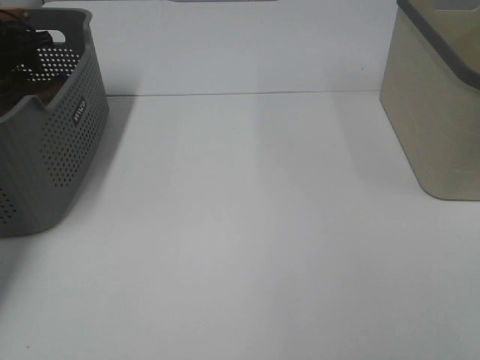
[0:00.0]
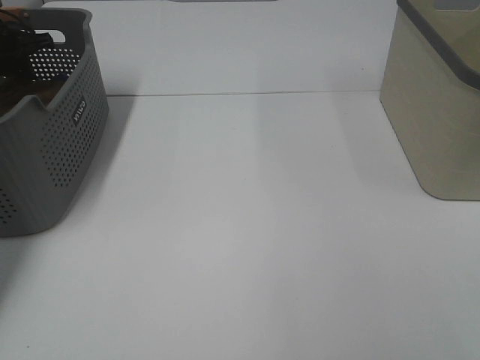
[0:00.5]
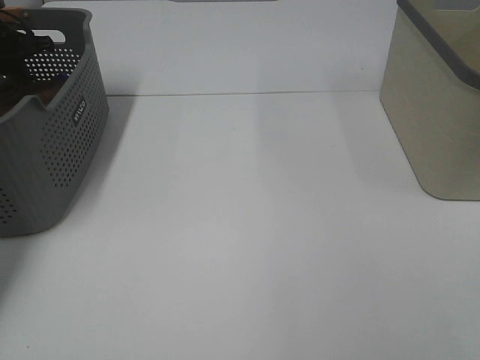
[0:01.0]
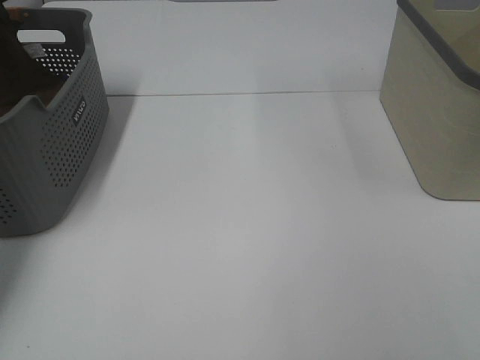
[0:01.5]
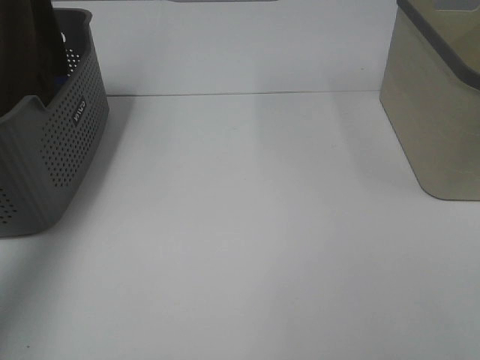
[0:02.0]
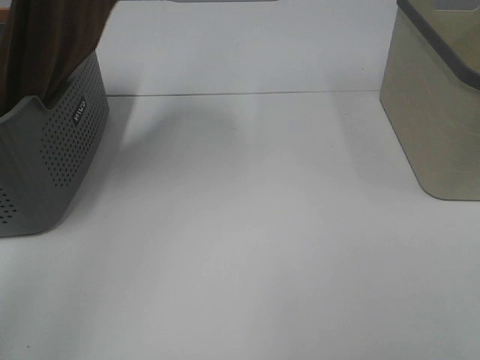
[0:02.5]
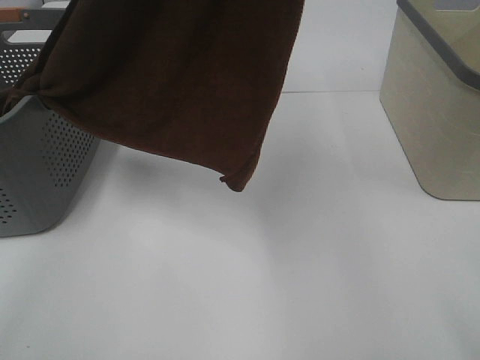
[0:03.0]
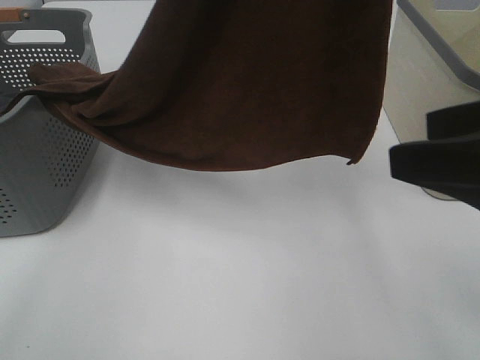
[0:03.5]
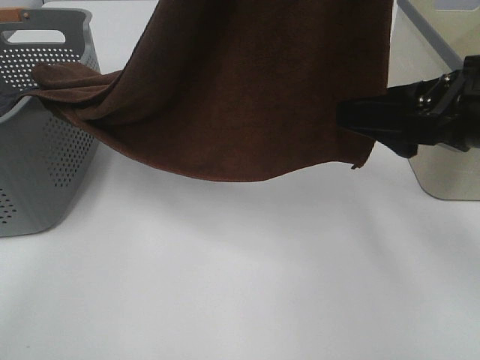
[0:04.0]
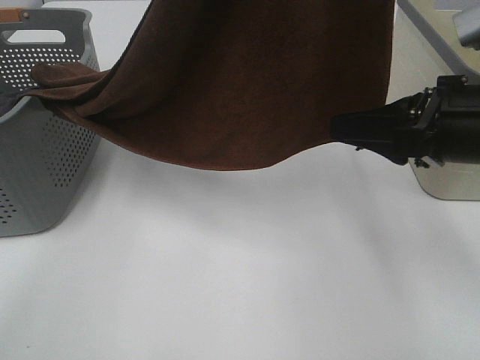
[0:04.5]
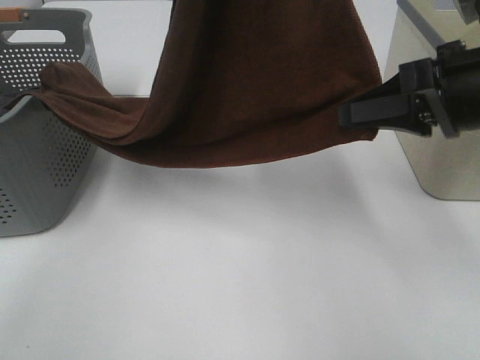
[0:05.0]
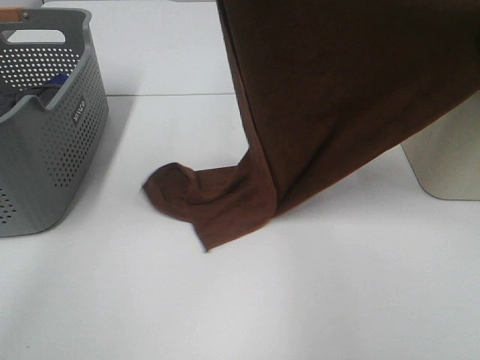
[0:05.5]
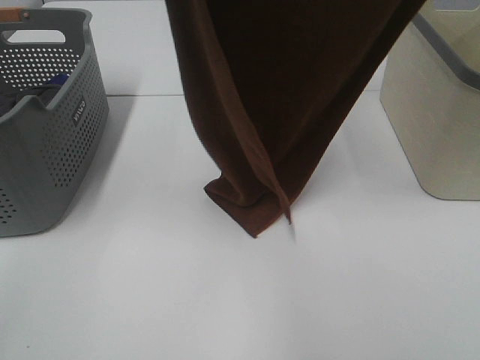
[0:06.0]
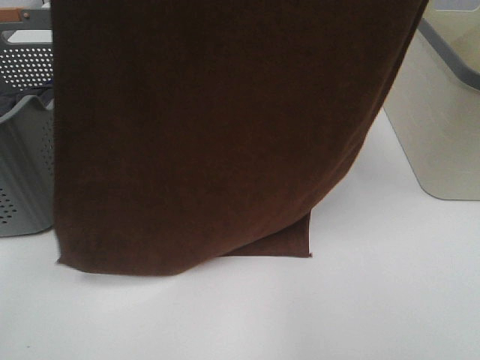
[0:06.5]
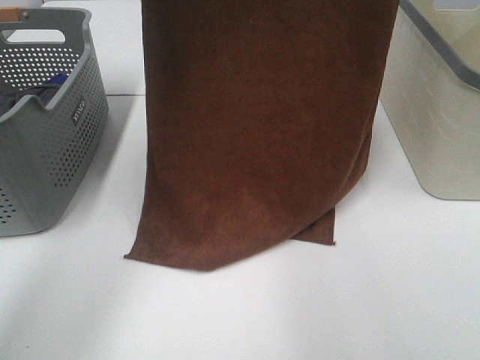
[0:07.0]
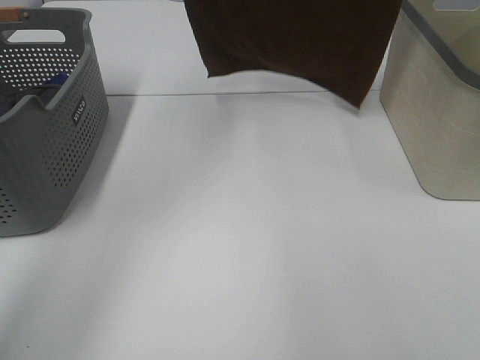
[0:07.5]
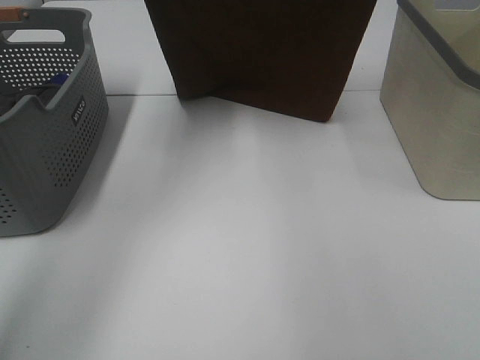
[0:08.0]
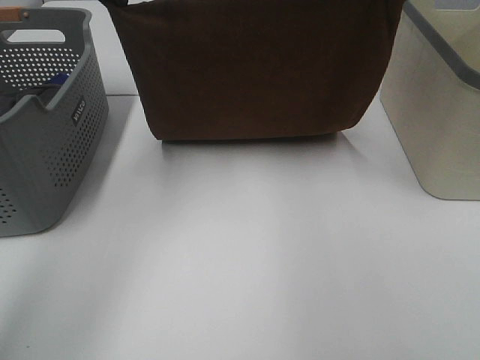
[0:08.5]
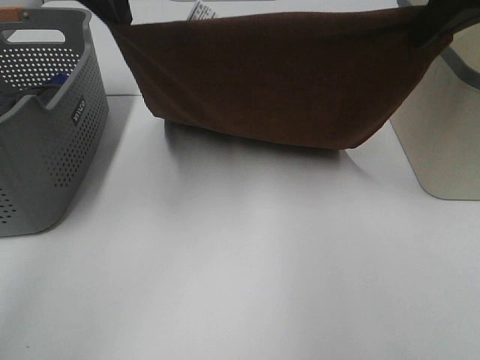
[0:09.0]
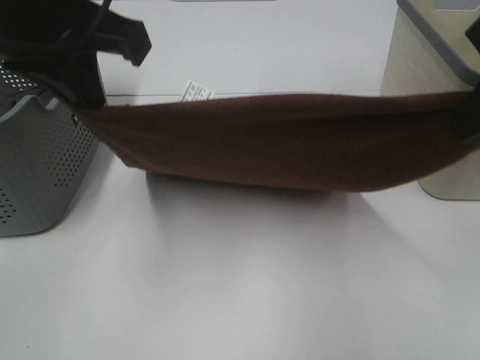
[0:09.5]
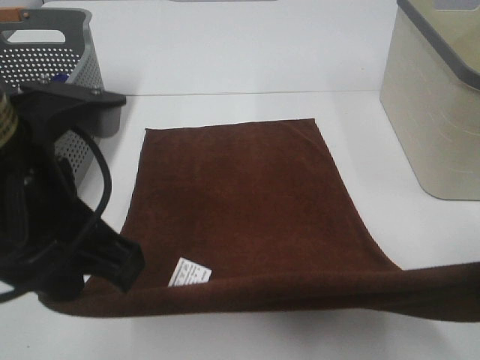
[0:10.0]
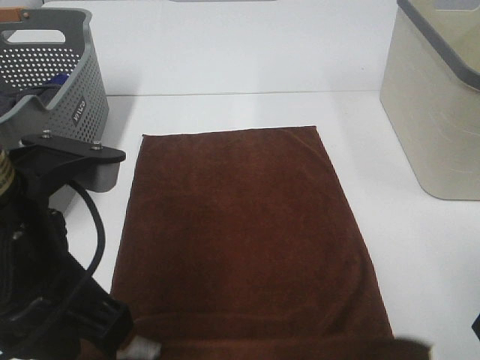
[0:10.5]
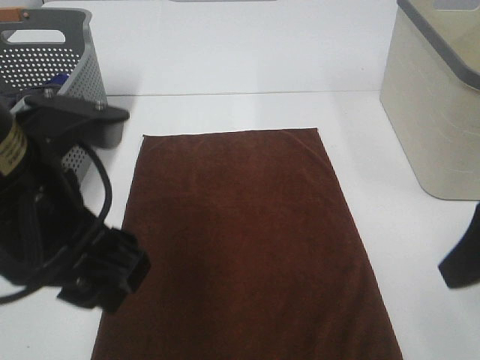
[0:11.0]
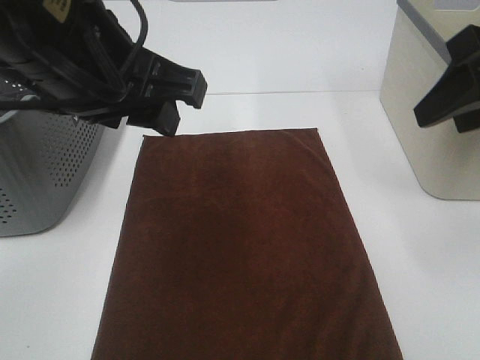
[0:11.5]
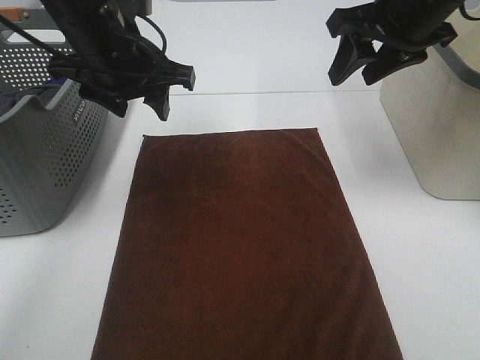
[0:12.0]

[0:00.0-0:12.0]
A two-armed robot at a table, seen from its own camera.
Task of the whole recording: Remove the towel and place it.
Step, 0:01.5 to 0:03.5: Right hand: grab a corner of the brown towel and straighten it.
Step, 0:04.0 to 0:07.0: Left hand: spread the brown towel flat on the table.
Step, 0:04.0 to 0:07.0: Right hand: spread the brown towel flat on the table.
0:00.0 to 0:02.0: The left gripper travels upward by about 30 cm, and closes up.
0:02.0 to 0:04.0: The left gripper travels to the right and backward by some 30 cm. Meanwhile the right gripper heads forward, covering roughly 20 cm.
0:04.0 to 0:06.0: The left gripper goes about 10 cm to the left, and reaches about 10 cm downward, then returns. The right gripper is displaced upward by some 25 cm, and closes its fingers.
0:06.0 to 0:08.0: The two grippers go some 20 cm forward and downward.
0:08.0 to 0:10.0: The grippers both shift backward and downward by roughly 30 cm.
0:10.0 to 0:12.0: The two grippers go approximately 25 cm forward. The right gripper opens. Meanwhile the left gripper opens up.

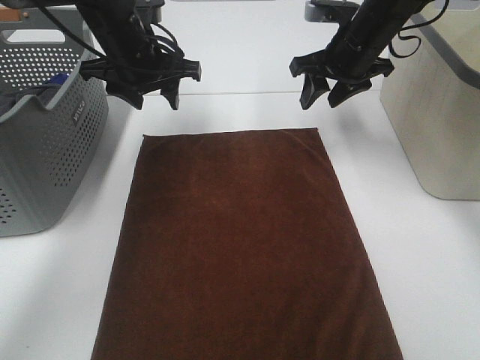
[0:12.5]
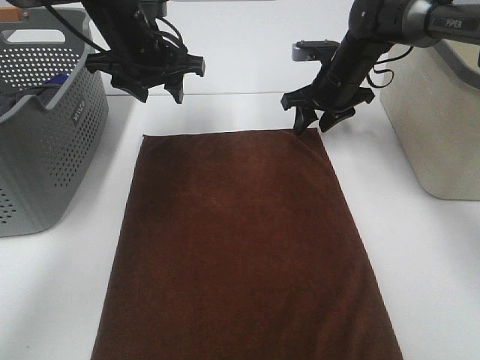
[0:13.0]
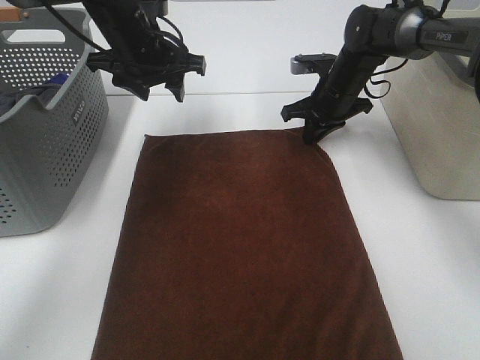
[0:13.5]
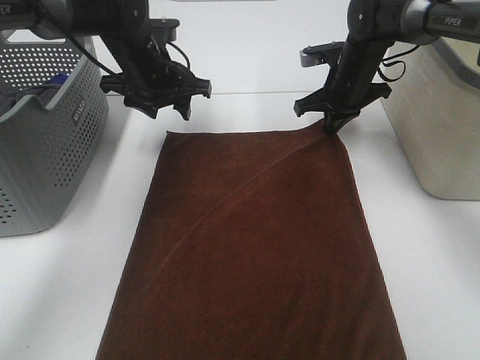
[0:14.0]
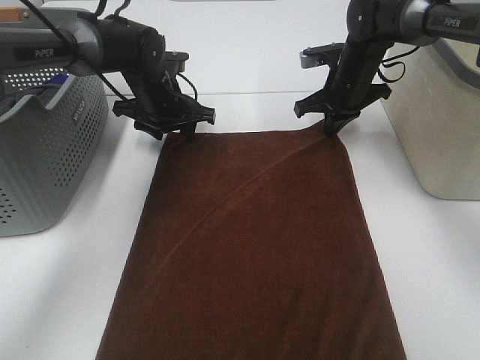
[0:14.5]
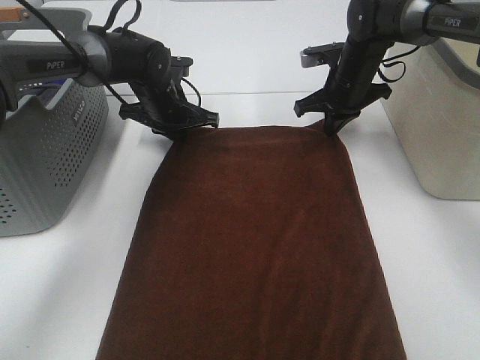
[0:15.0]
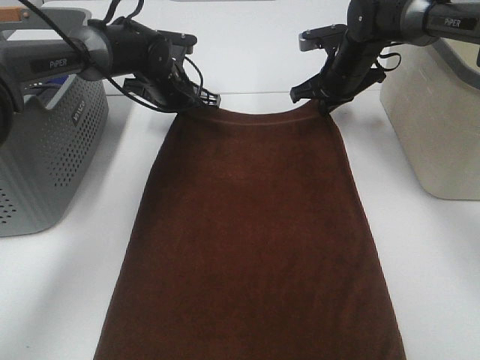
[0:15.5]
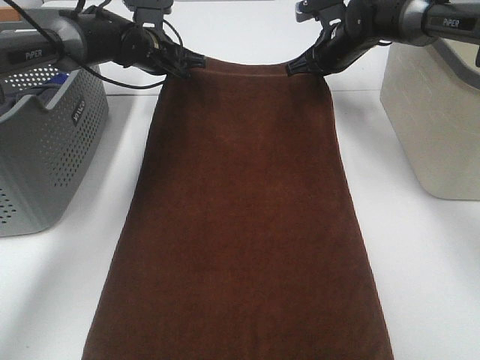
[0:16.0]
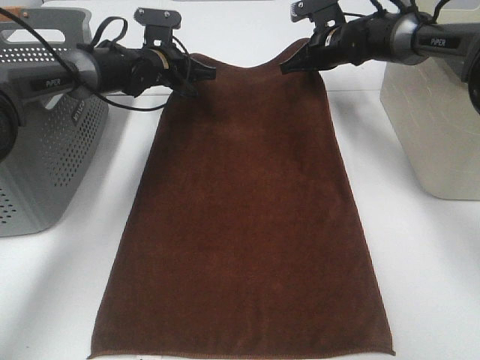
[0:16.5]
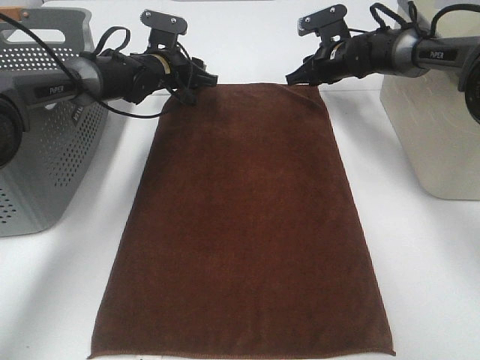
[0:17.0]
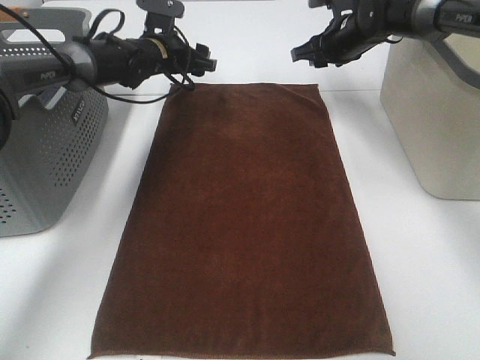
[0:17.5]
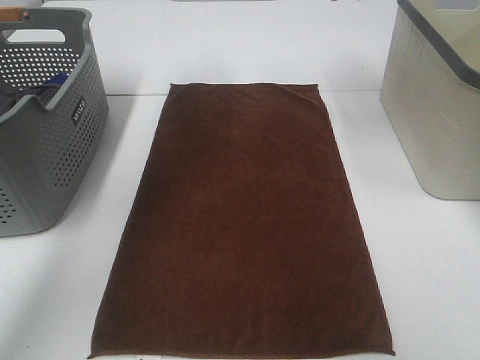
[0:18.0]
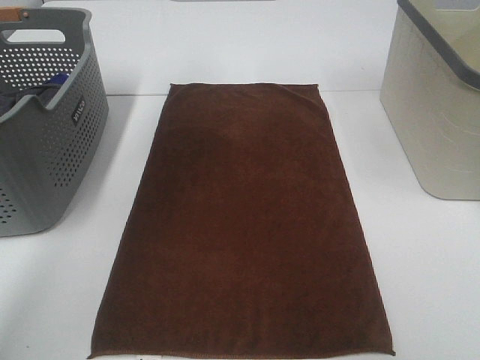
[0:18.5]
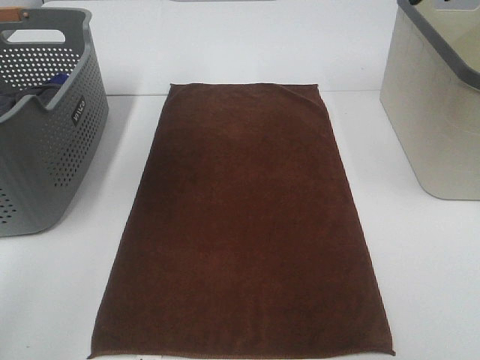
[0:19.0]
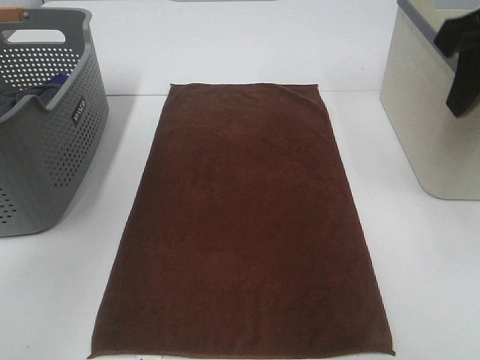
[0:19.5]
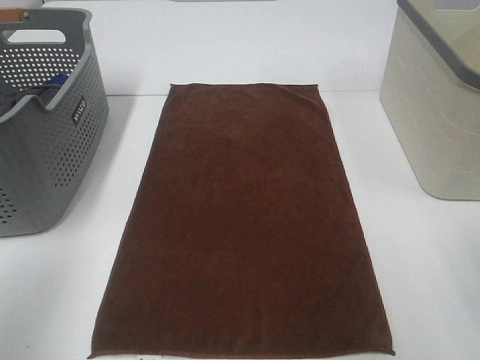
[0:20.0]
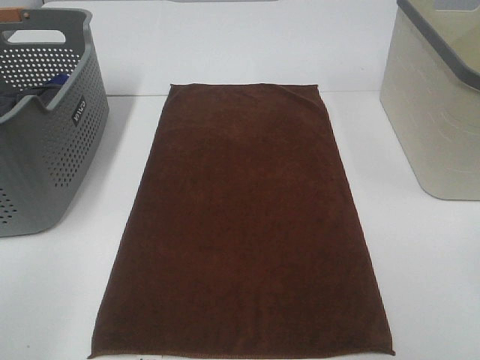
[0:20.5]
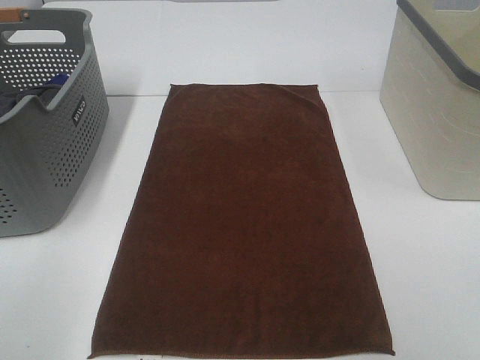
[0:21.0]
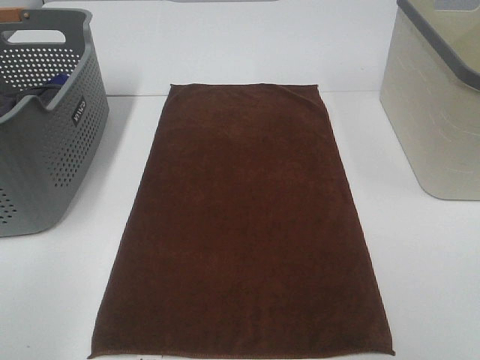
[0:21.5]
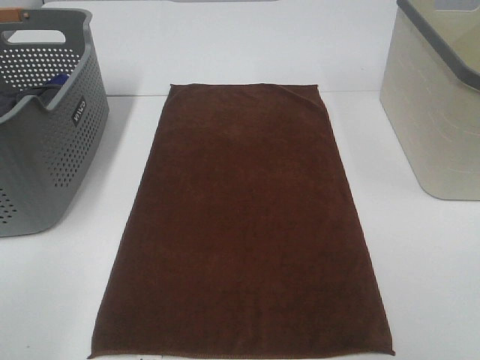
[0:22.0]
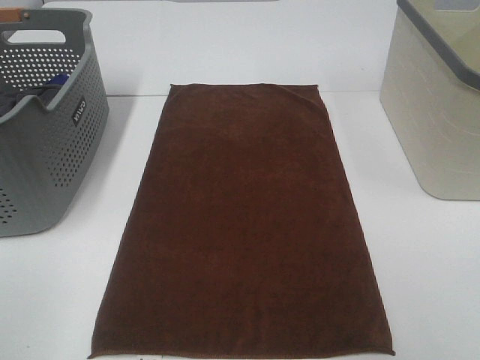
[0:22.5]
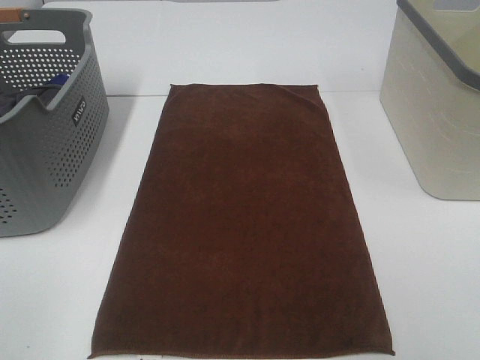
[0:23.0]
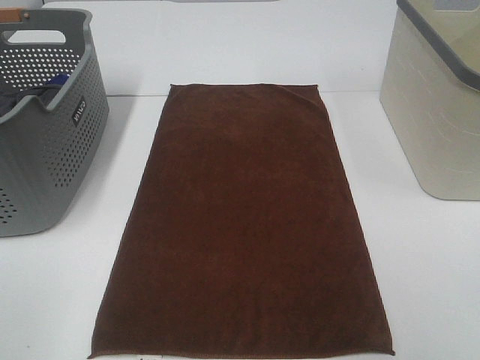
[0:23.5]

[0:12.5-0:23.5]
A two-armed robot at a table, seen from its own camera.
Task of the whole recording: Remove the towel and place it.
0:12.5 to 0:14.5: Both grippers move downward, roughly 10 cm. The right gripper closes up.
0:14.5 to 0:16.0: The right gripper ends up approximately 5 cm from where it was; the left gripper heads forward, covering about 5 cm, and closes.
0:16.0 to 0:18.0: The right gripper heads upward and backward, covering approximately 20 cm, and opens its fingers; the left gripper travels upward by some 15 cm, and opens up.
0:18.0 to 0:20.0: The two grippers go about 35 cm backward.

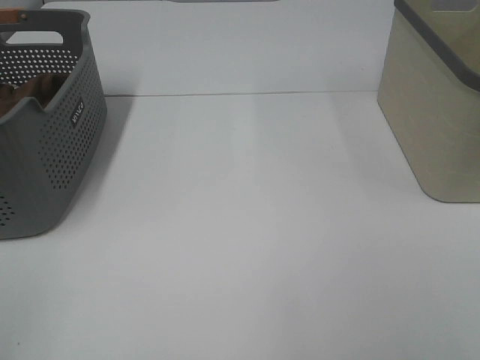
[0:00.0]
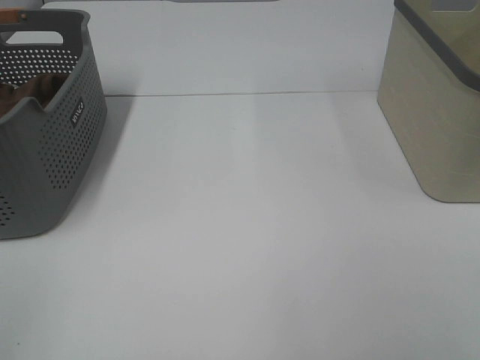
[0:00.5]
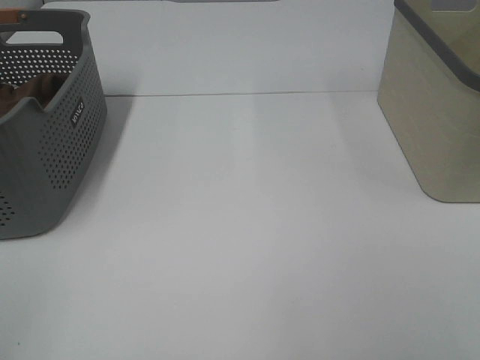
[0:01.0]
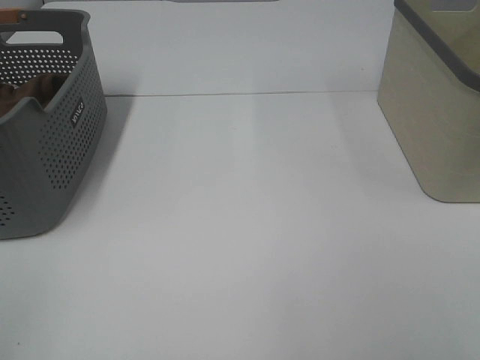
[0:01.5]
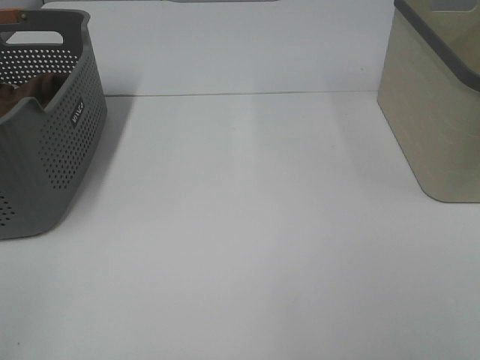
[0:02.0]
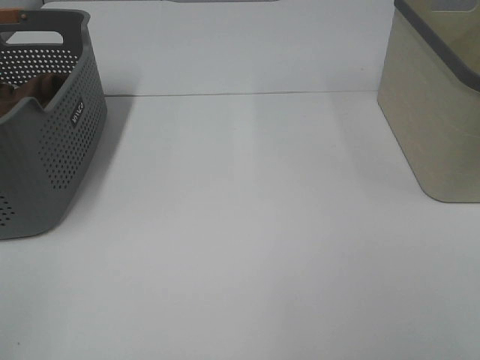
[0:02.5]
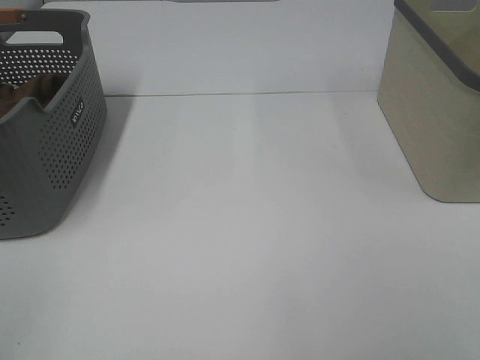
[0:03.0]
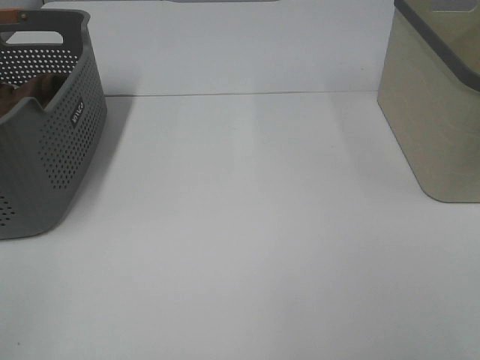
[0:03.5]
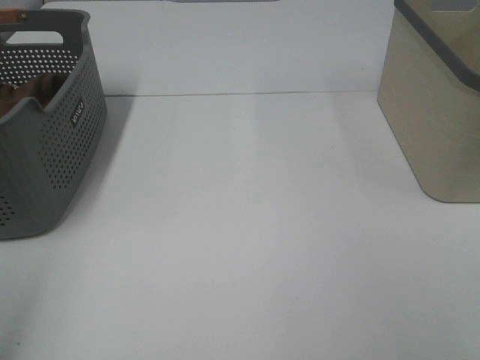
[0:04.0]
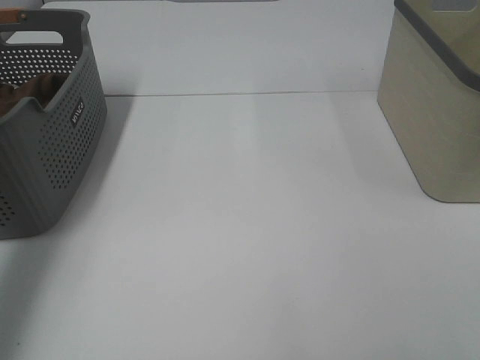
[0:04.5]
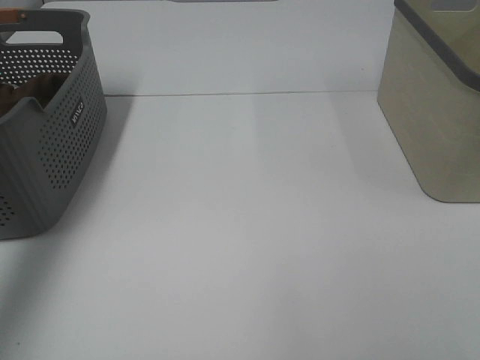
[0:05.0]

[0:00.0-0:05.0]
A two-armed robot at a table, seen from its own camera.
Task of the whole recording: Remove the towel and place it.
0:00.0 to 0:02.5: Neither gripper changes place.
0:02.5 to 0:05.0: The left gripper is displaced forward by some 35 cm.
